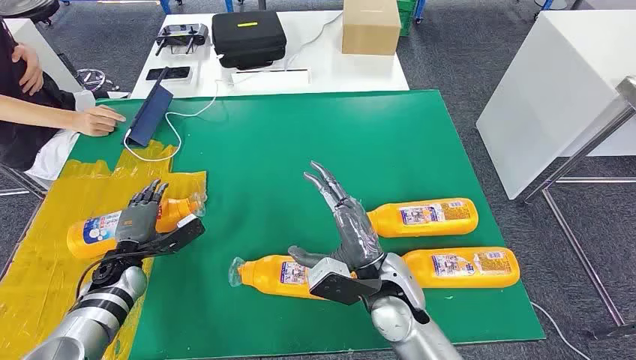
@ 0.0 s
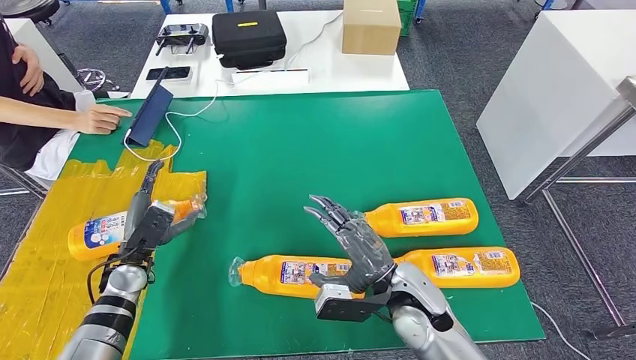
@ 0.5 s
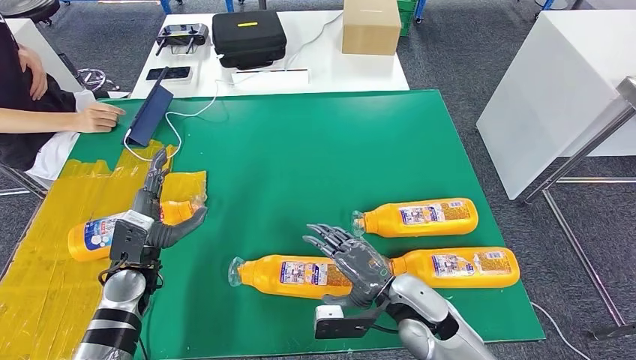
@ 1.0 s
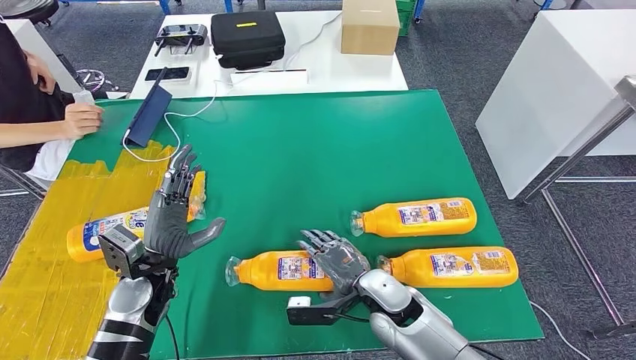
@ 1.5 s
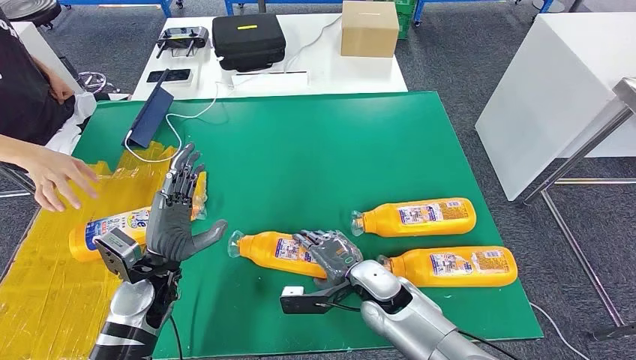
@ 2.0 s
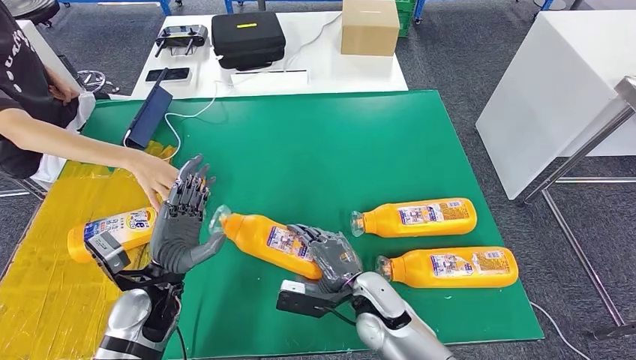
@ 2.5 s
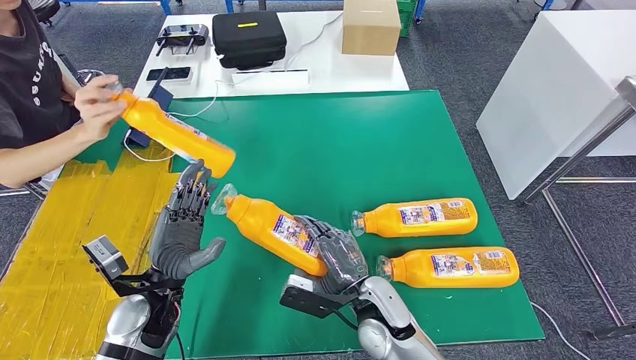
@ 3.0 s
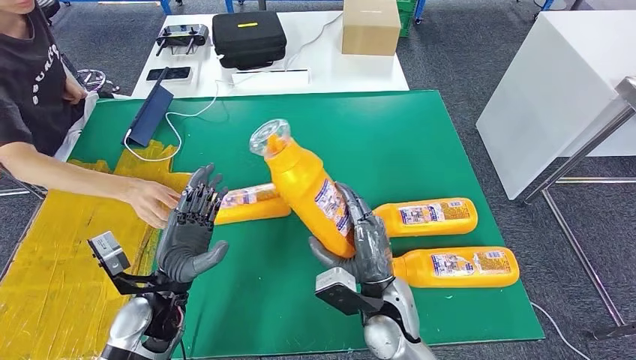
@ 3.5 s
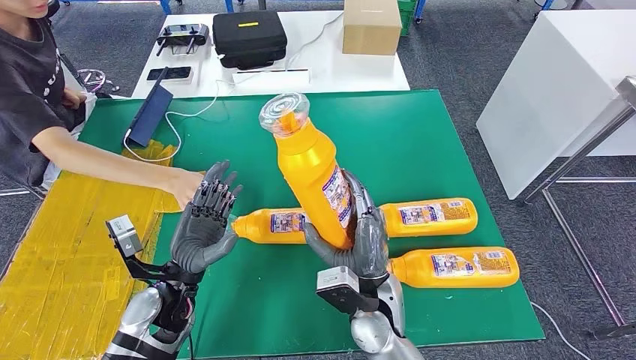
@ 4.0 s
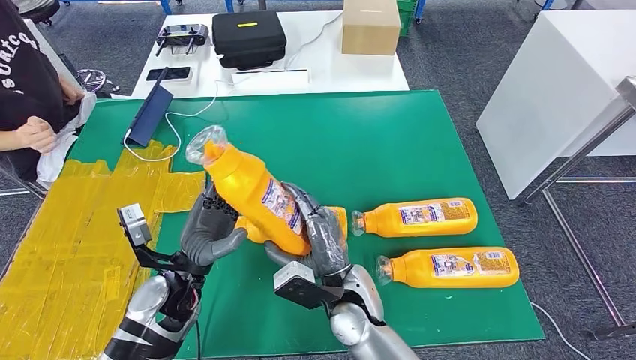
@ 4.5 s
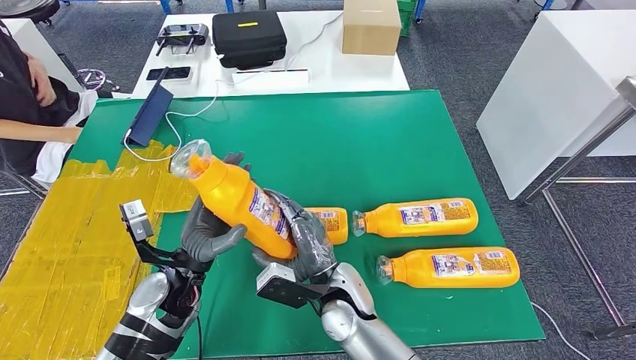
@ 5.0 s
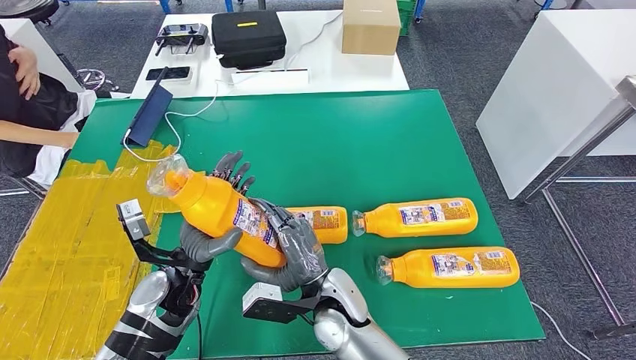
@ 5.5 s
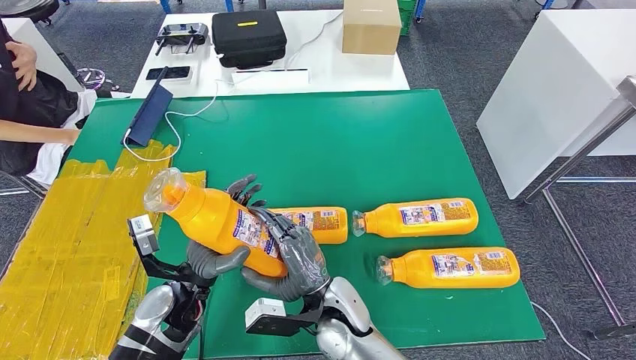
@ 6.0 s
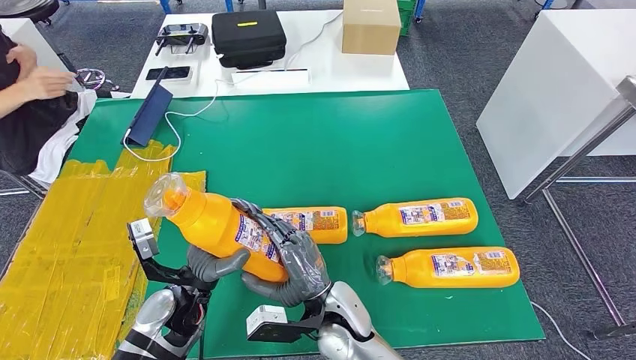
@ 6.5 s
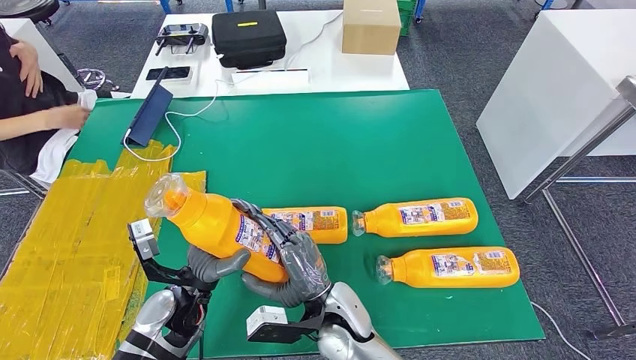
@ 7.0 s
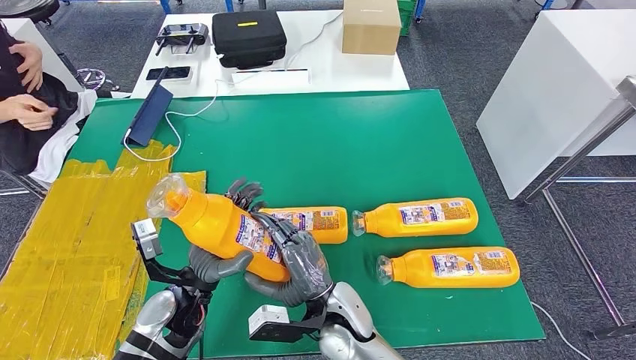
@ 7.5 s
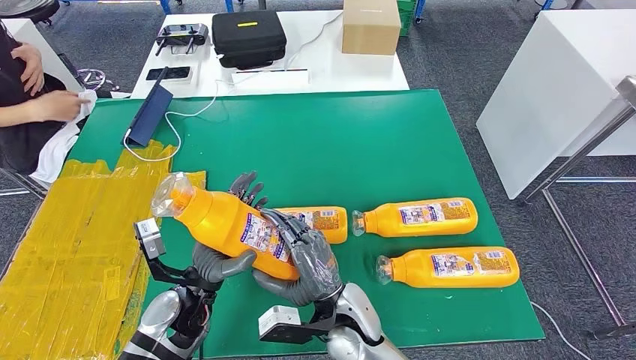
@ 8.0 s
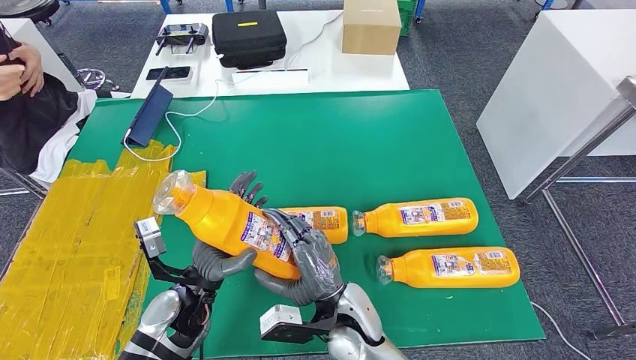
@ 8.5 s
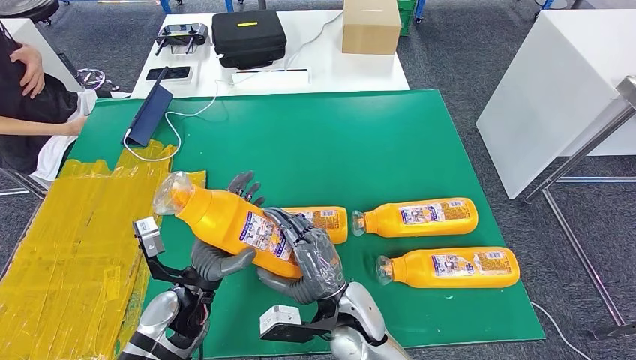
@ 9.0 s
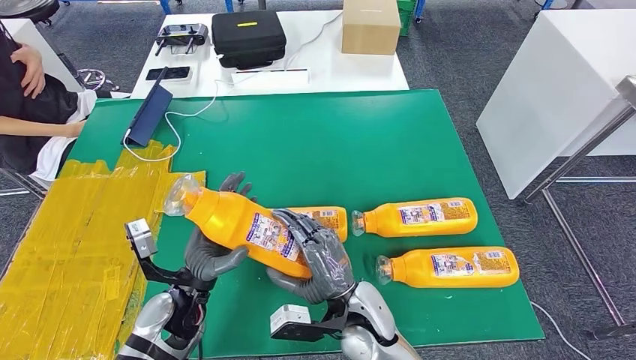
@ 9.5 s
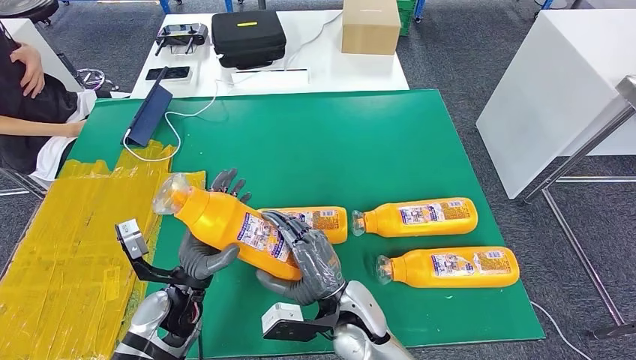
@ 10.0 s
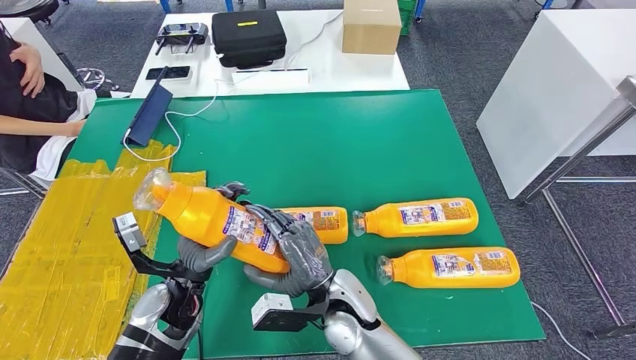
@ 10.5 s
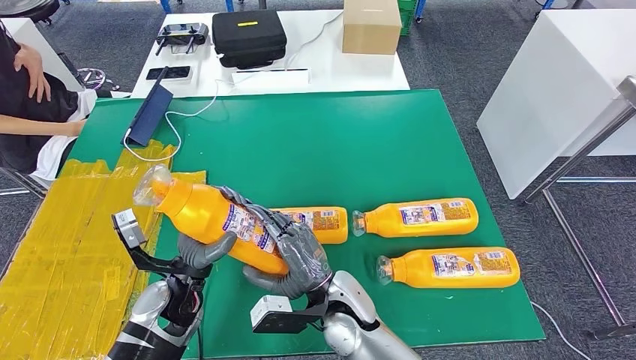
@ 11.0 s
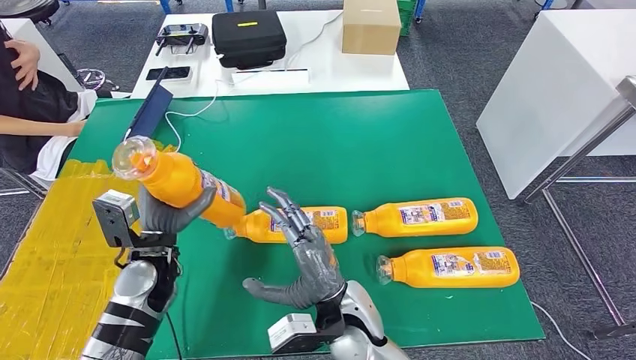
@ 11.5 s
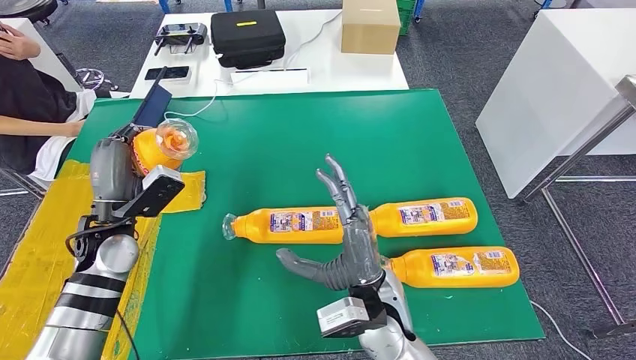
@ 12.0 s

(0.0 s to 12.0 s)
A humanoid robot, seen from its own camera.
Step, 0.0 s - 4.5 s: Take the bottle from the table.
6.0 s - 10.0 s: The hands move only a little.
10.0 s - 12.0 s: The right hand heads upward, covering roughly 5 cm. Meanwhile the left hand travels to the left, forward and upward by roughly 15 cm.

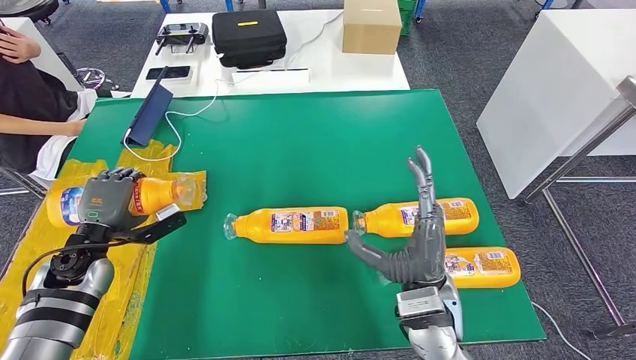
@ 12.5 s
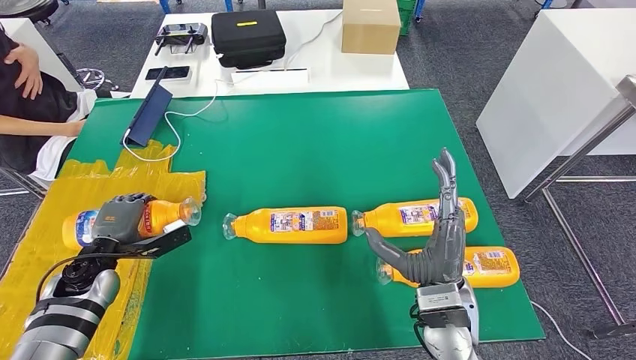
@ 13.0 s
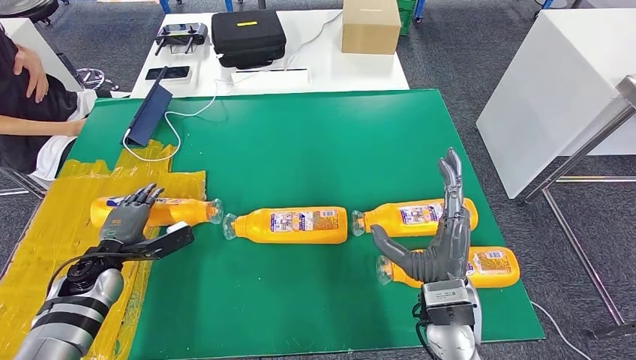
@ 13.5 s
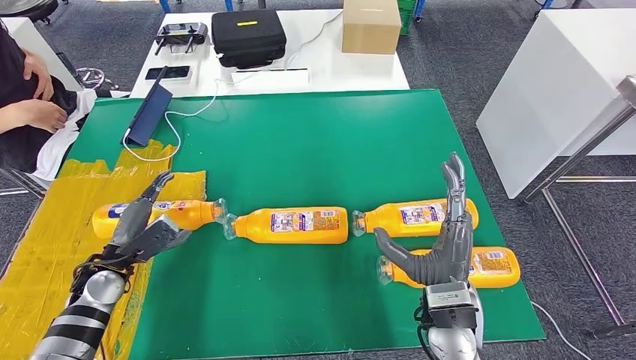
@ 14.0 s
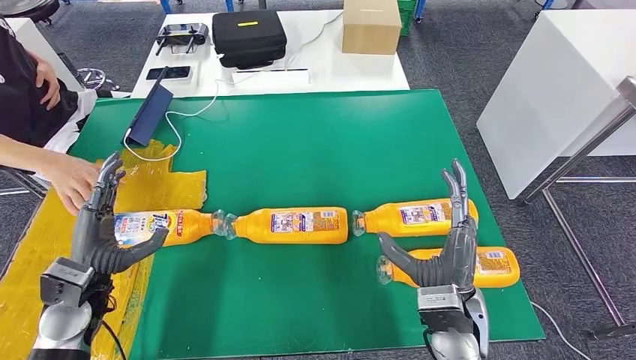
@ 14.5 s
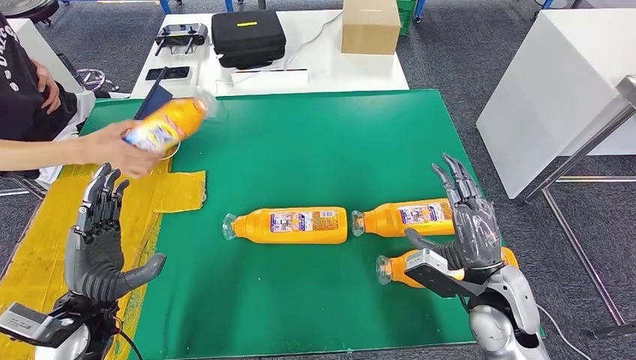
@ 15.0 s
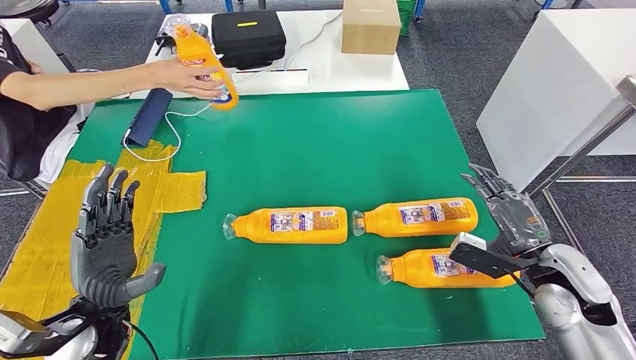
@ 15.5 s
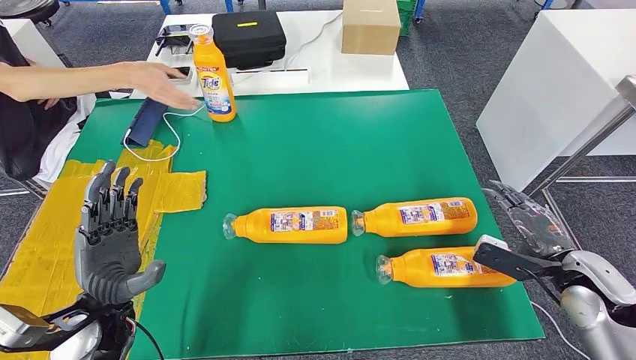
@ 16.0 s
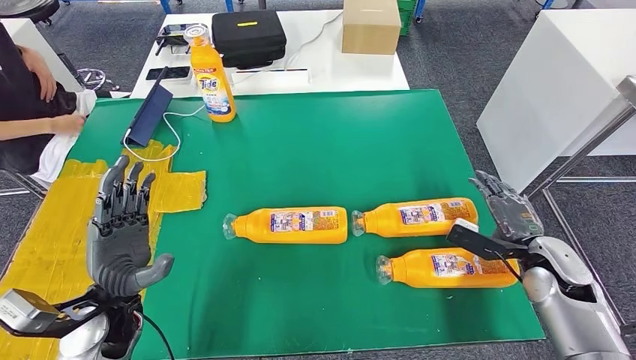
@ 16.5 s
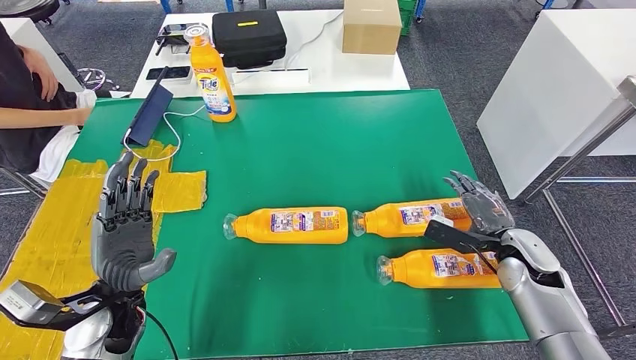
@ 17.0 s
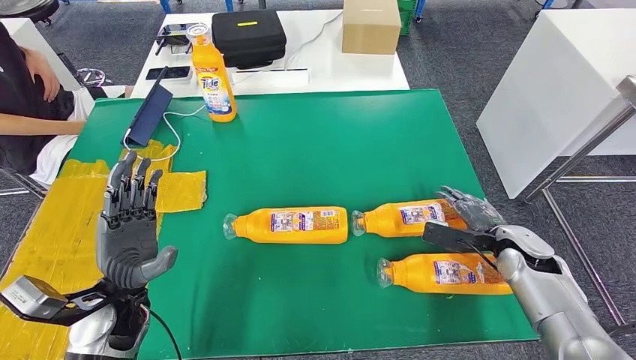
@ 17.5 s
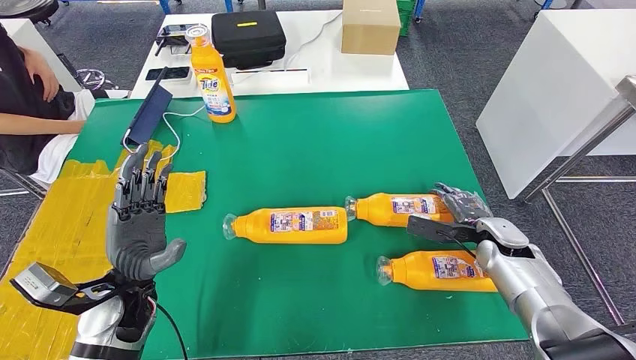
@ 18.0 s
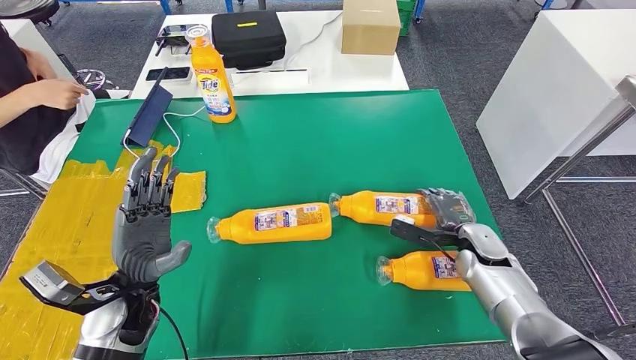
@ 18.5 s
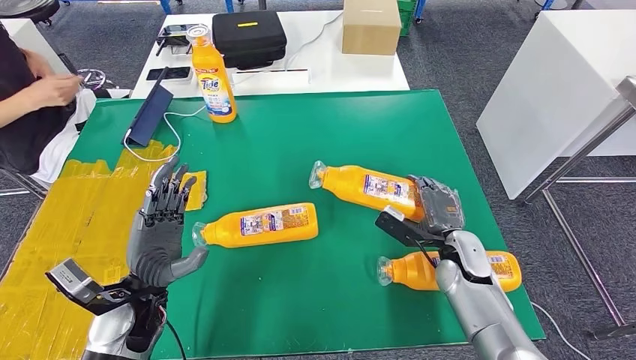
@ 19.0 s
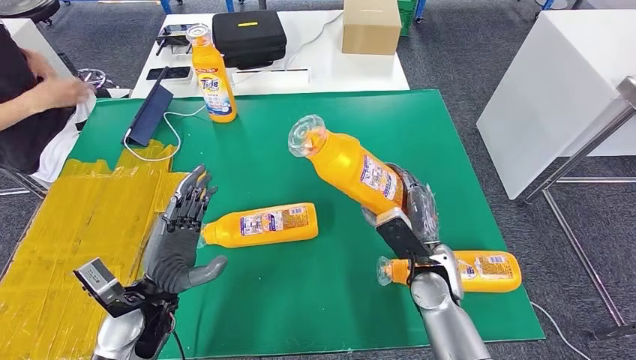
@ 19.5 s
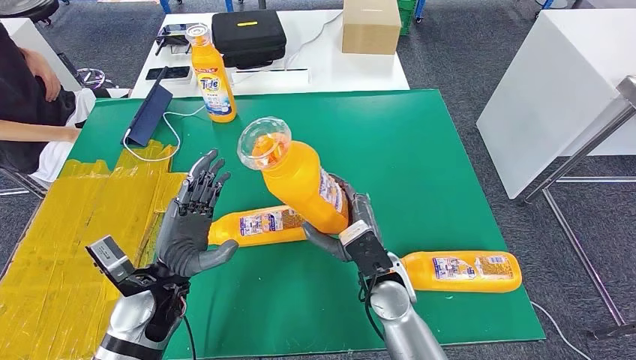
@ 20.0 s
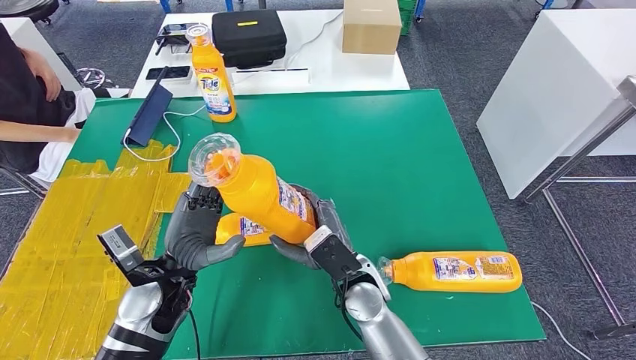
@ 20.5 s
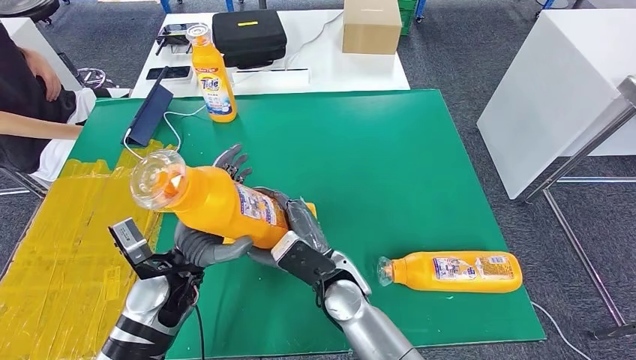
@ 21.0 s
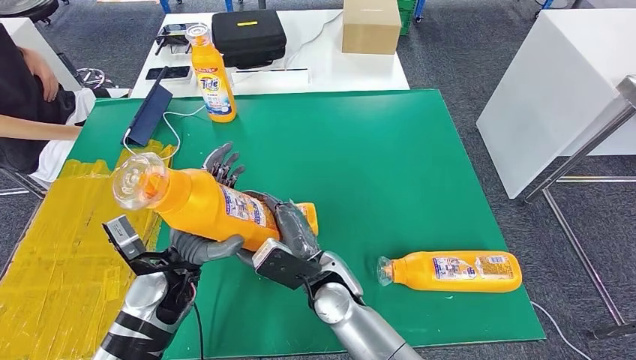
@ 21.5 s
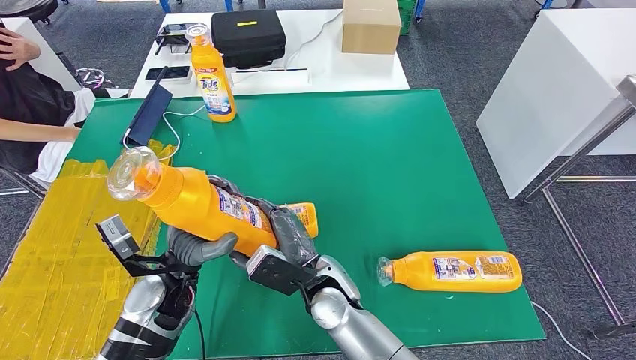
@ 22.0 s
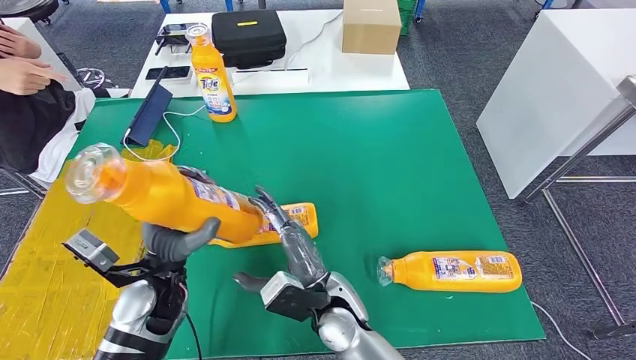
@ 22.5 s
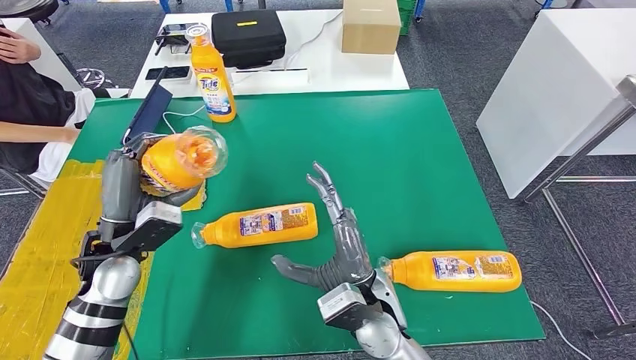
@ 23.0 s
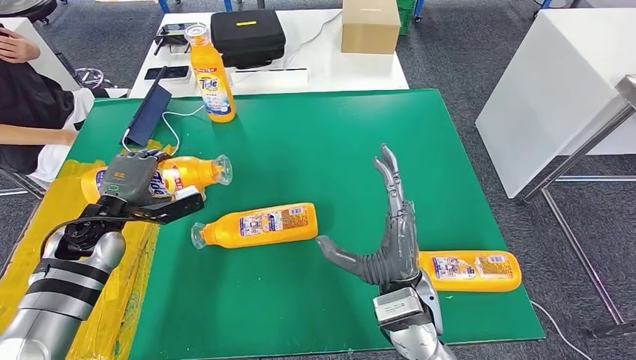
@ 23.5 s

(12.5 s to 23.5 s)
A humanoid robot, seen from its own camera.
Step, 14.5 s - 19.5 s: Pick up the bottle from the table.
12.5 s - 14.5 s: The left hand heads backward, covering about 10 cm.
20.0 s - 21.5 s: The right hand travels to the left by about 10 cm.
